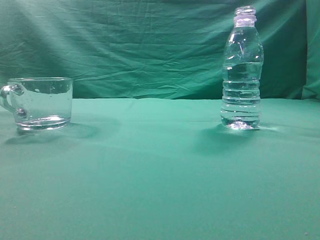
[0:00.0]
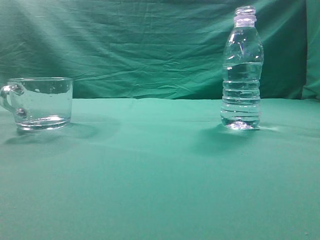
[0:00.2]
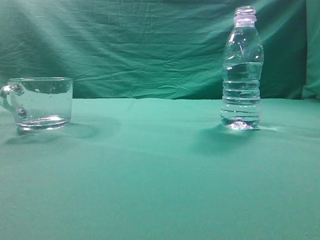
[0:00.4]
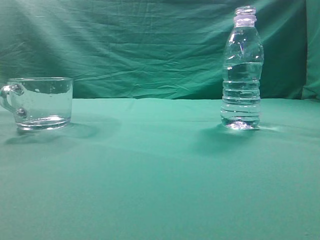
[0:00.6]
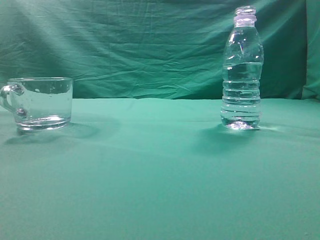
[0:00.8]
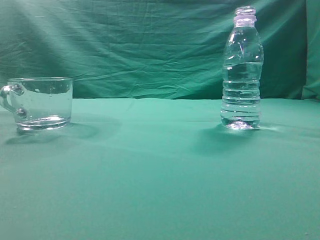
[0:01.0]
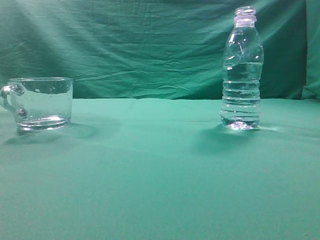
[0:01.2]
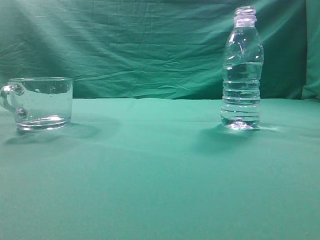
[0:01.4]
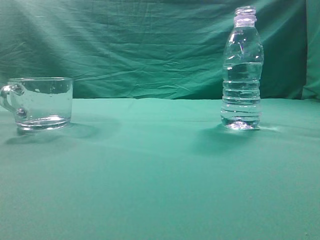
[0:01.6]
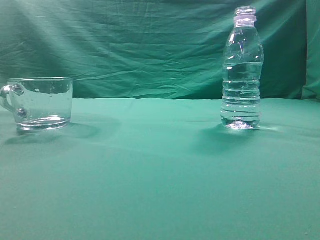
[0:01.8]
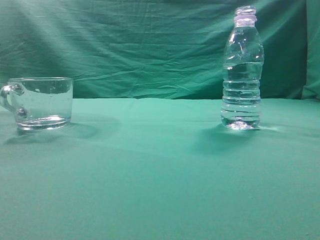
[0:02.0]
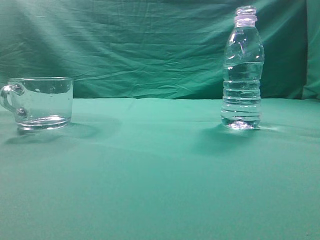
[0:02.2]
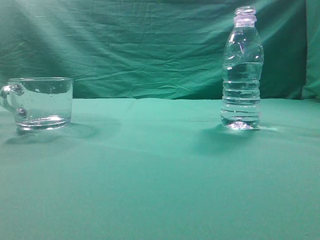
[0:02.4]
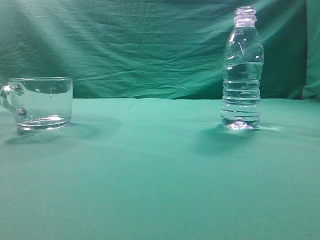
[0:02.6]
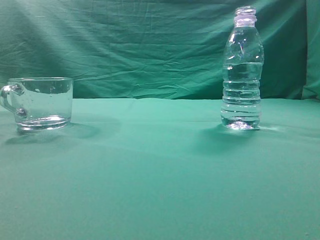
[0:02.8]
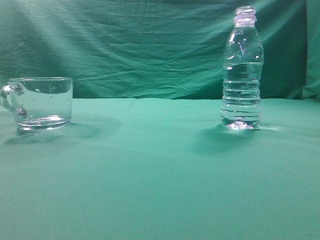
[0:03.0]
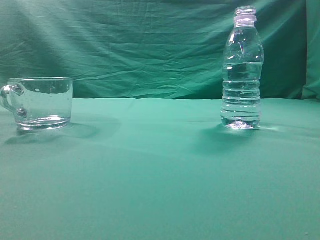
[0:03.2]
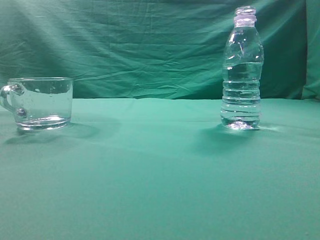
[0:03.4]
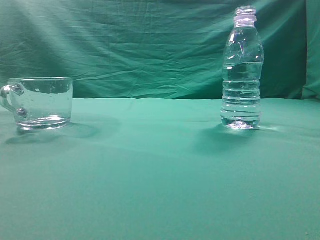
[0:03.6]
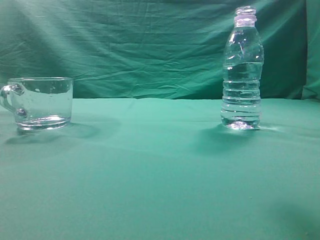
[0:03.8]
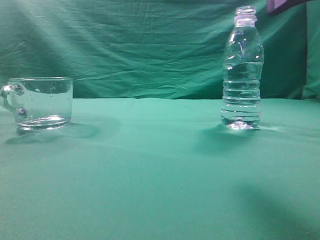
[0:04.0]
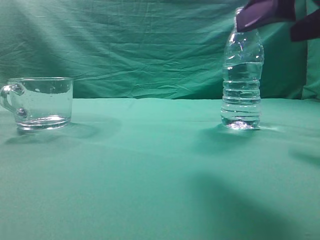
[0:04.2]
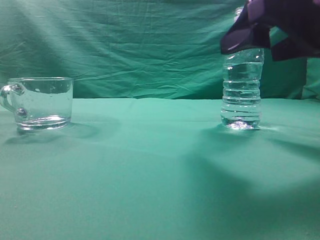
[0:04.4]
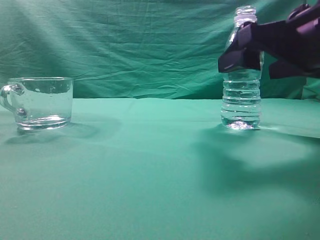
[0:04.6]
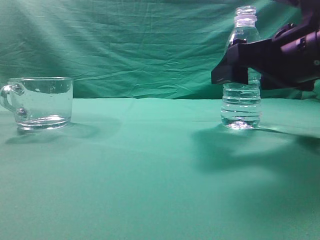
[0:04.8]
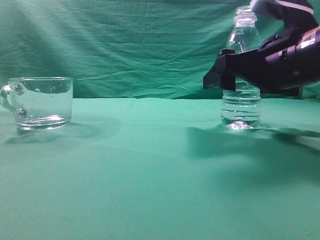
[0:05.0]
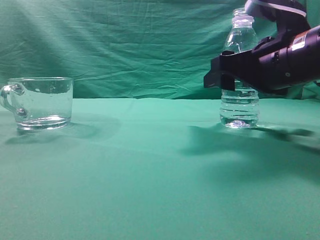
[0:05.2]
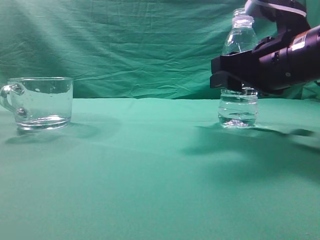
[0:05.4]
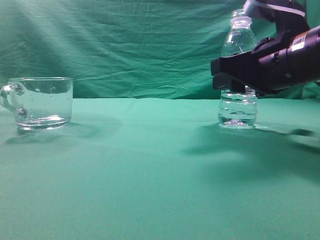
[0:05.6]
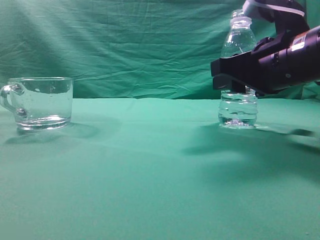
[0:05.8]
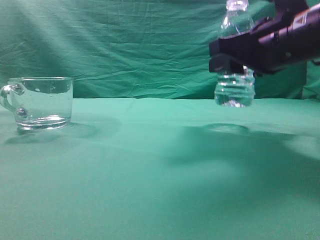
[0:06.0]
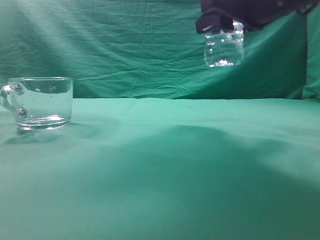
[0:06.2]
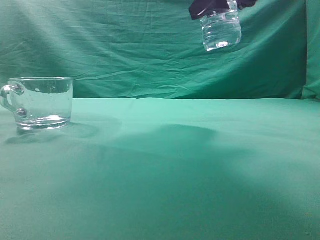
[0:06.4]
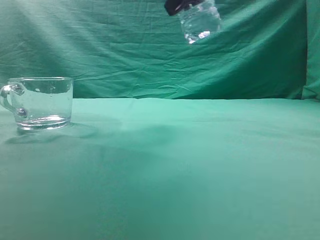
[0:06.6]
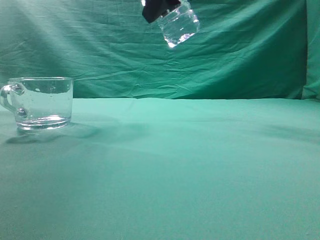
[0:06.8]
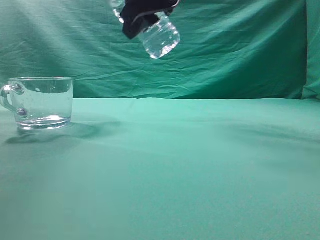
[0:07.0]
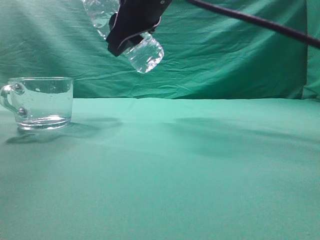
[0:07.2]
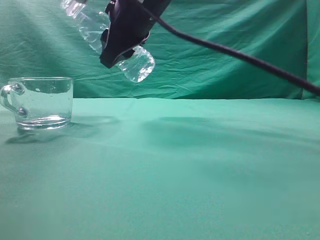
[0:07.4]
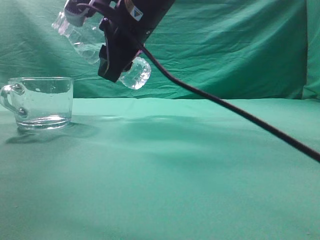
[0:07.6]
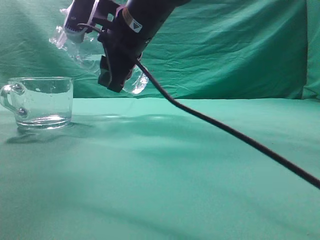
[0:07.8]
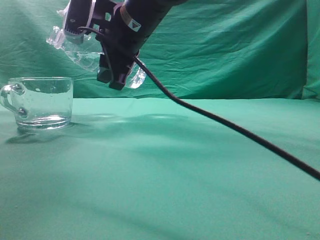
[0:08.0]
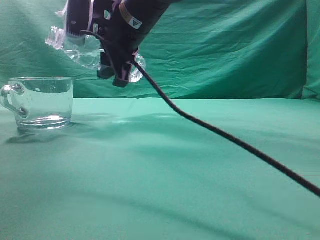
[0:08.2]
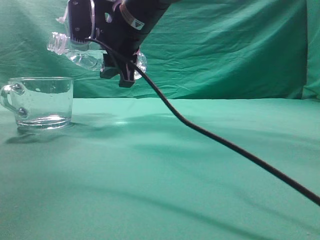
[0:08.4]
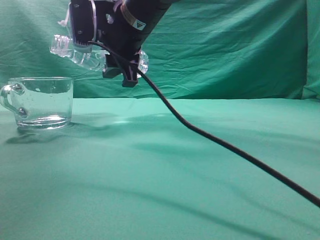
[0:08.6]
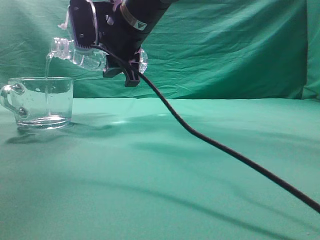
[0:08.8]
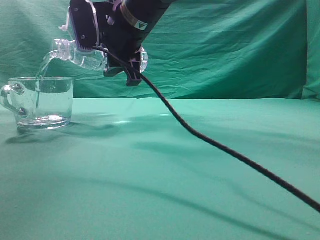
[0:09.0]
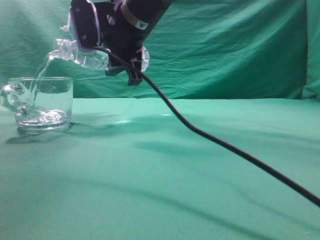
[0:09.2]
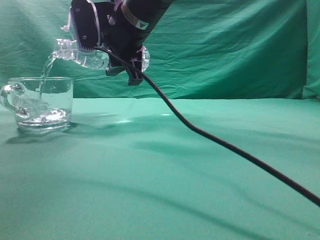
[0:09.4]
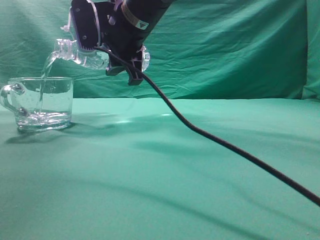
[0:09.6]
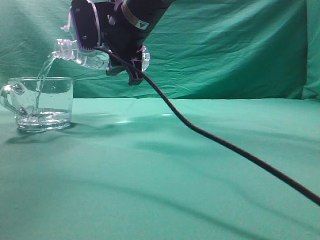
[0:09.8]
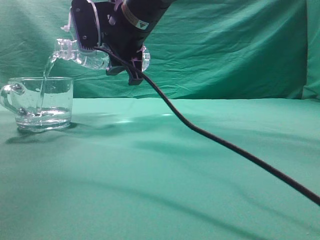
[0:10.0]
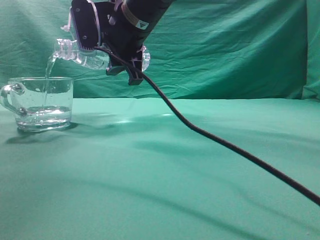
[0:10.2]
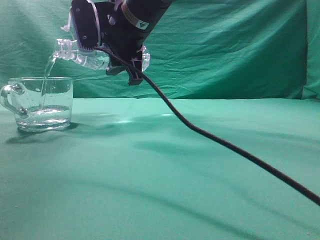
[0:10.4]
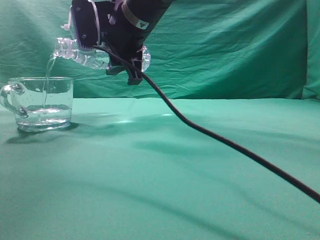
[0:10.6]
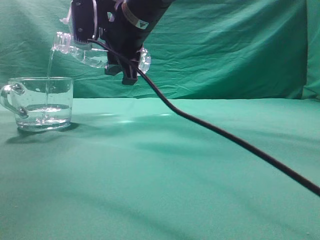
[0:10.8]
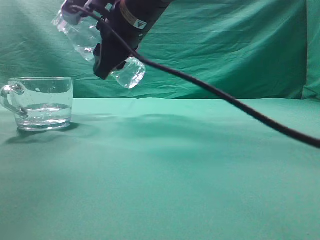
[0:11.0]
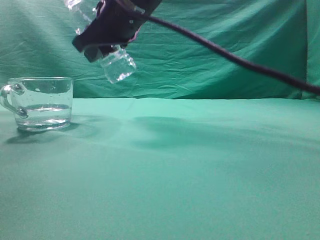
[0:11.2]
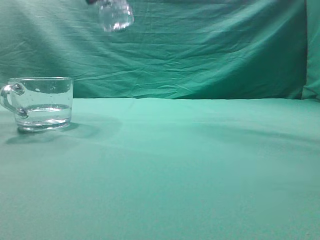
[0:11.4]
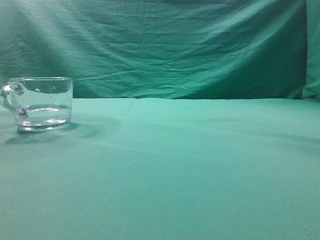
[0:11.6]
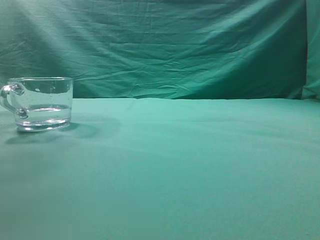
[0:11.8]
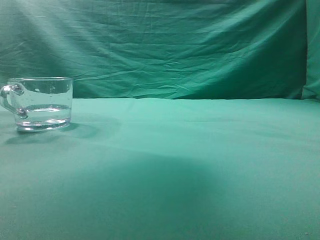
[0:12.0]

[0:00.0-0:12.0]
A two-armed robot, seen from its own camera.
Task of the whole recording: pick up the water bottle and pour the water in it into the glass.
Step, 0:00.0 to 0:06.0: Grasp the mineral water bottle.
Step, 0:06.2 to 0:11.0: Pour water into the teacup.
0:03.0 to 0:04.4: The right gripper travels forward, downward and to the left by roughly 20 cm, and opens up.
0:04.4 to 0:06.0: The right gripper shifts about 5 cm forward, and closes its fingers.
0:06.0 to 0:07.6: The right gripper moves to the left, approximately 20 cm.
0:09.0 to 0:10.4: Neither gripper changes place.
0:10.4 to 0:12.0: The right gripper travels to the right, upward and backward by about 25 cm.

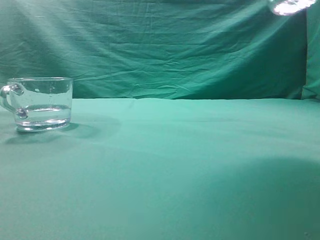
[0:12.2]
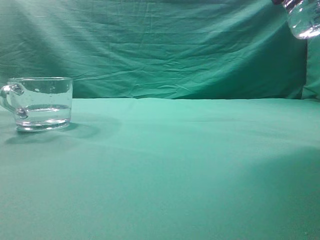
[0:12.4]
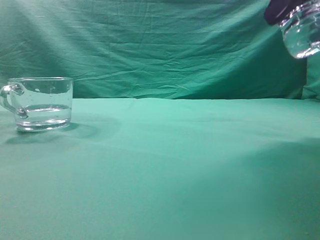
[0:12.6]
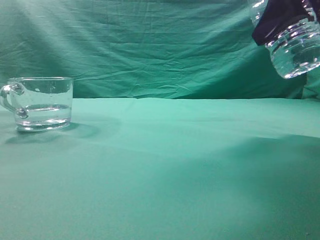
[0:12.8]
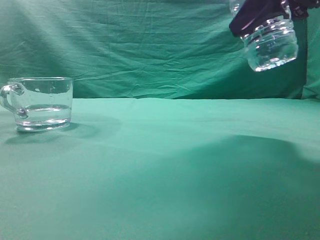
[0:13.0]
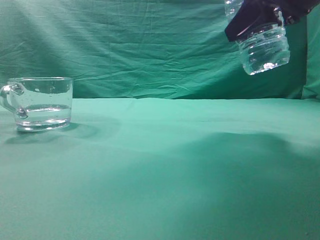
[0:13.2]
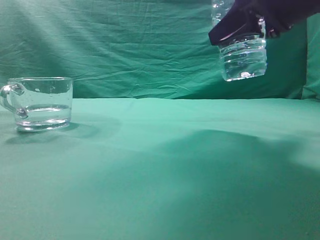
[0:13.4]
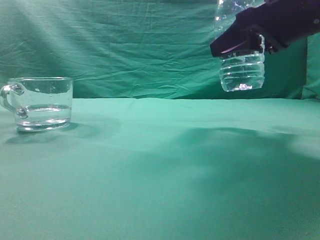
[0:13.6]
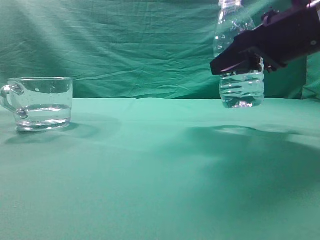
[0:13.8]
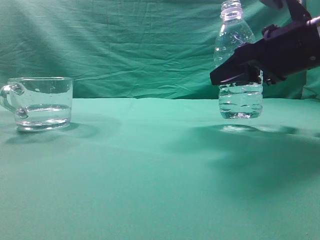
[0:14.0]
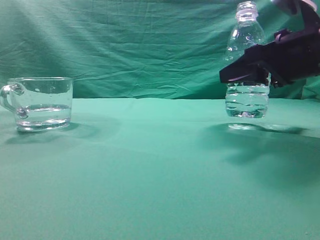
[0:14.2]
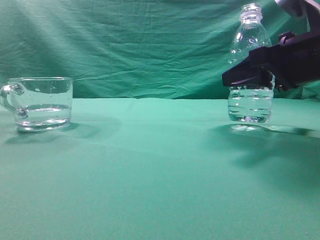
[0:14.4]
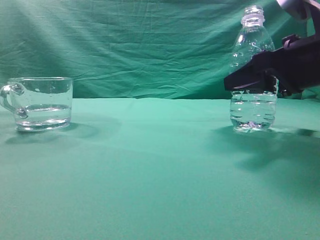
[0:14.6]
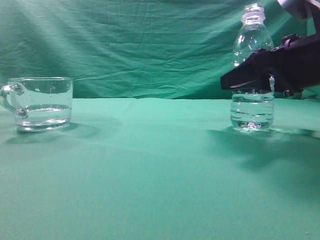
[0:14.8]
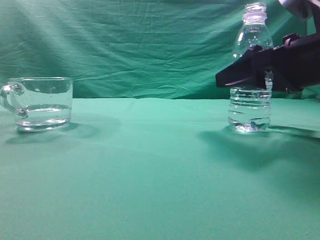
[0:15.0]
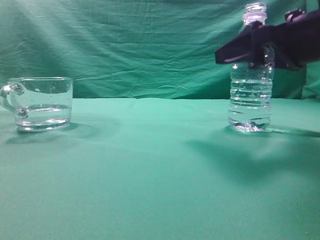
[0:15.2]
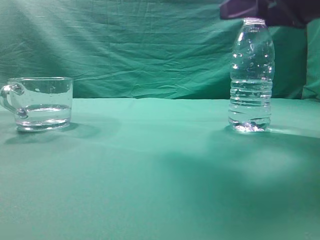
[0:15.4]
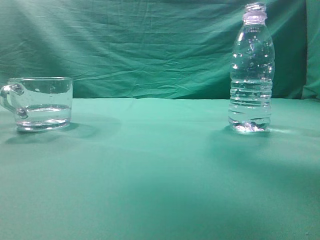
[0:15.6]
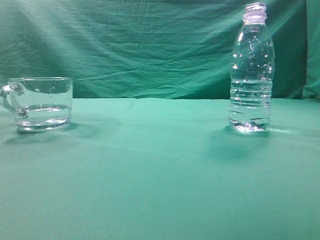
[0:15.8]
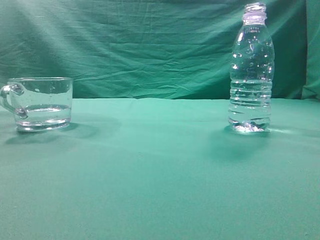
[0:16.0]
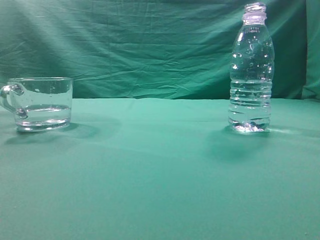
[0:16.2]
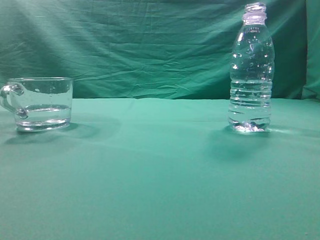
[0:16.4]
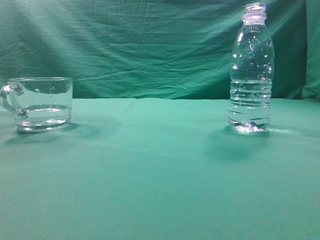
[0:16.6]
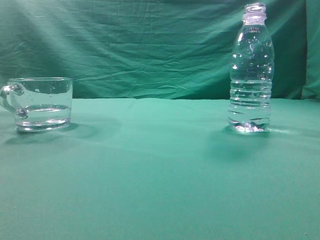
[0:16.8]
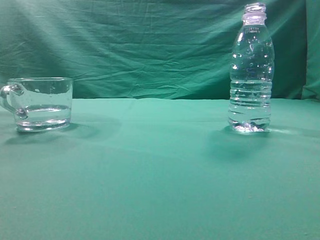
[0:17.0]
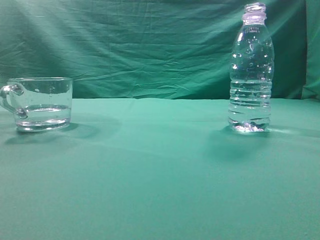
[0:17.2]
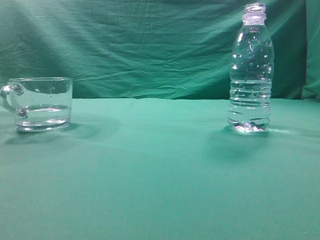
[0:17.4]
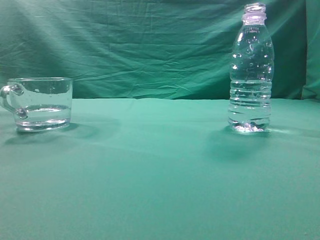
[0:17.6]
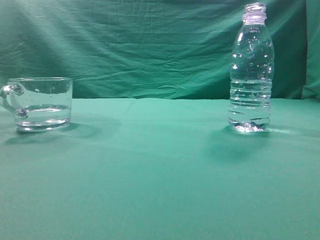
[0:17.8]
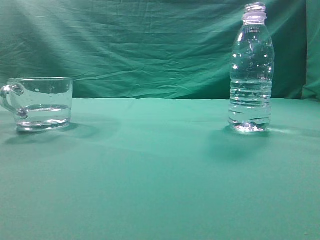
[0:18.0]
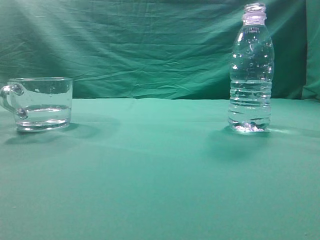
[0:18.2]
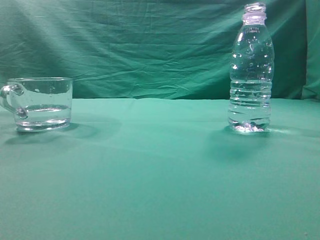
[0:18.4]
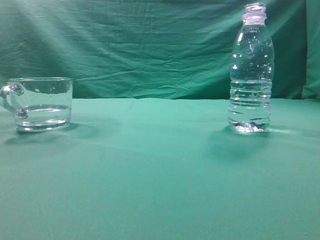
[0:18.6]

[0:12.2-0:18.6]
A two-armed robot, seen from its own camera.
Task of the whole recording: pick up the water bottle and pour the water in it into the glass.
0:12.2 to 0:13.8: The right gripper is displaced downward by approximately 15 cm.
0:13.8 to 0:15.4: The right gripper shifts roughly 5 cm upward, and opens up.
0:15.4 to 0:17.0: The right gripper is displaced backward and upward by some 35 cm, and closes up.
